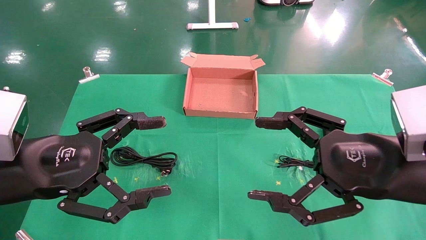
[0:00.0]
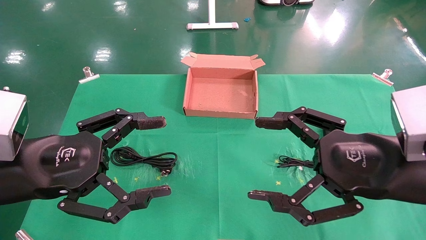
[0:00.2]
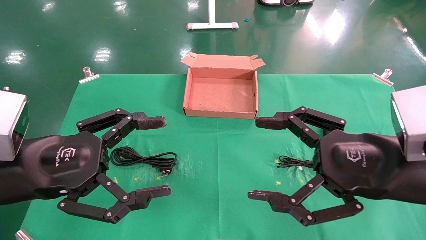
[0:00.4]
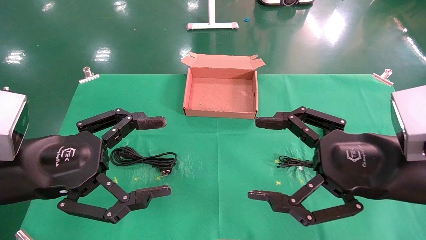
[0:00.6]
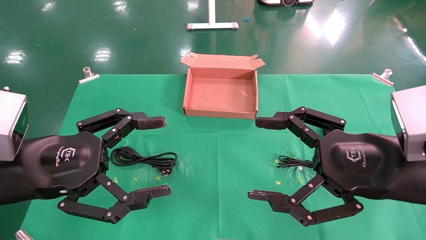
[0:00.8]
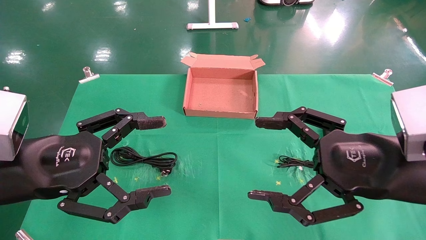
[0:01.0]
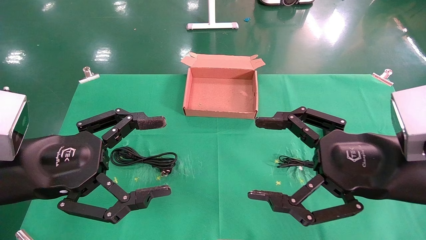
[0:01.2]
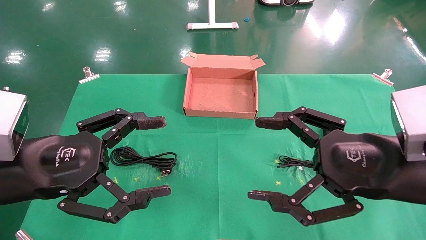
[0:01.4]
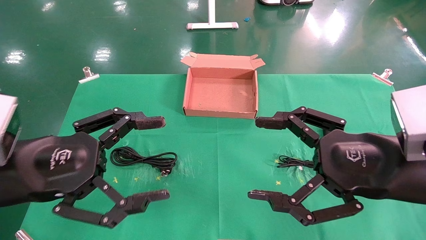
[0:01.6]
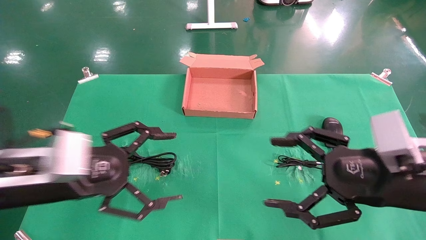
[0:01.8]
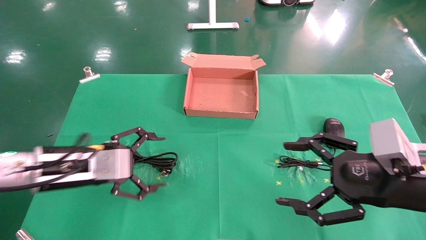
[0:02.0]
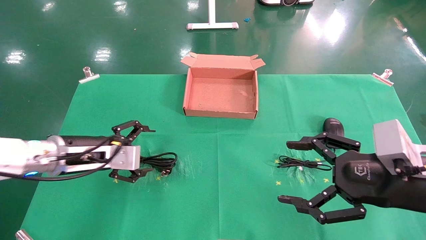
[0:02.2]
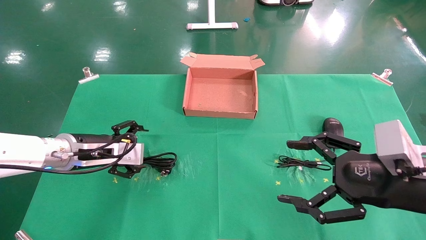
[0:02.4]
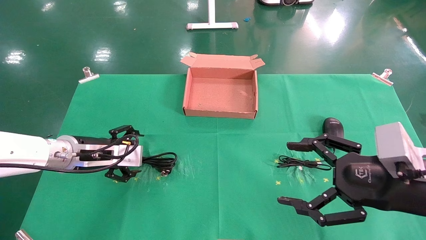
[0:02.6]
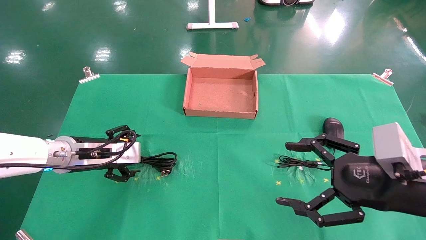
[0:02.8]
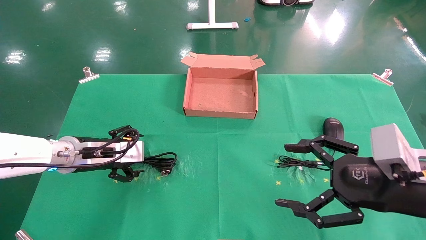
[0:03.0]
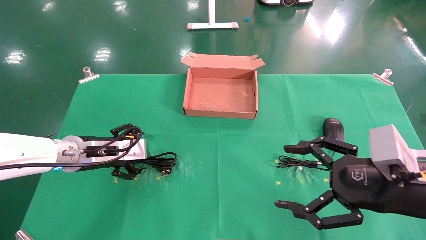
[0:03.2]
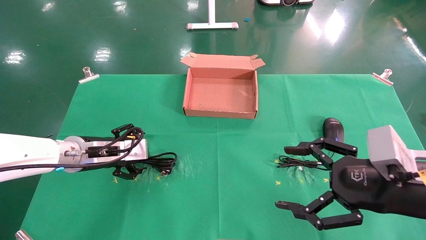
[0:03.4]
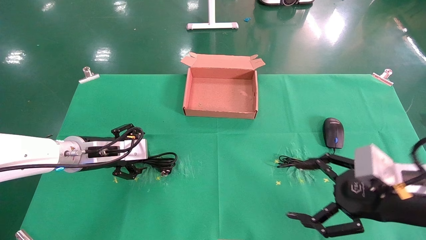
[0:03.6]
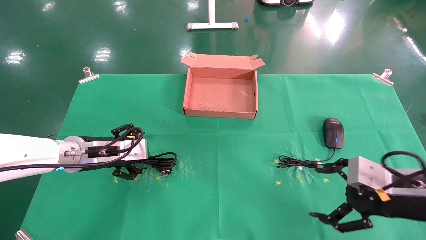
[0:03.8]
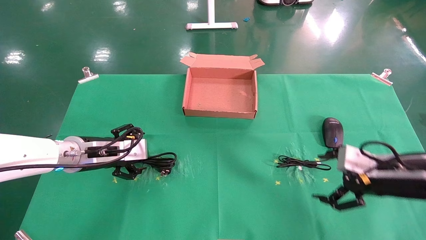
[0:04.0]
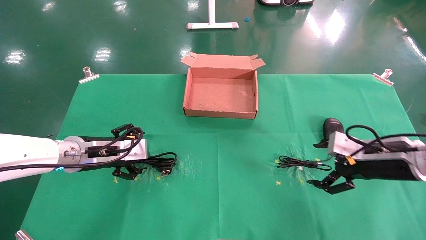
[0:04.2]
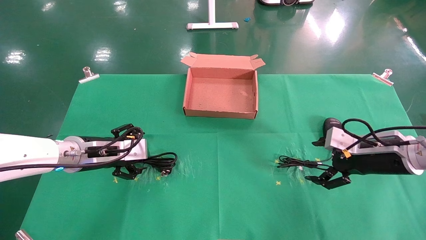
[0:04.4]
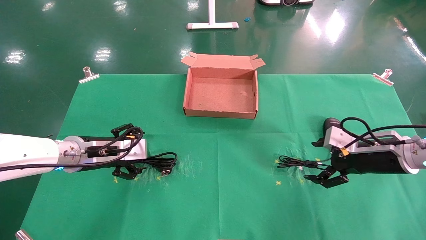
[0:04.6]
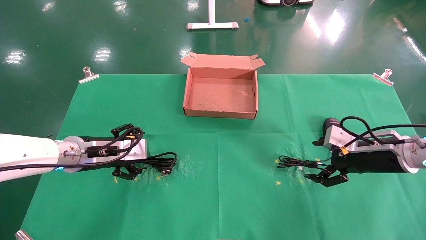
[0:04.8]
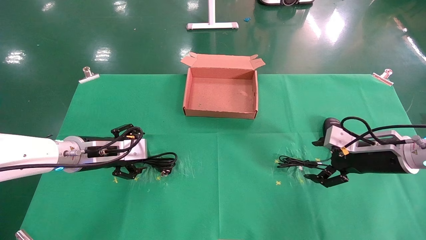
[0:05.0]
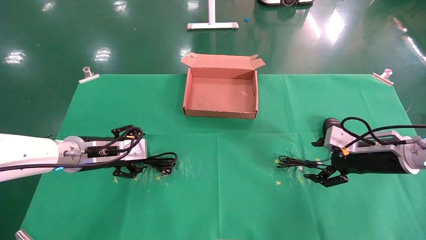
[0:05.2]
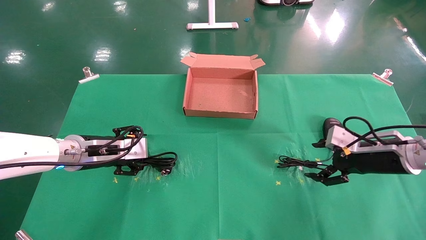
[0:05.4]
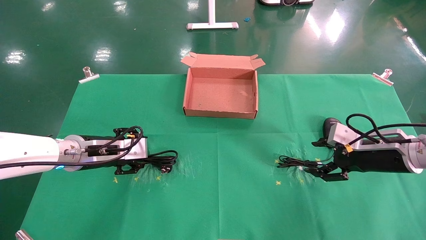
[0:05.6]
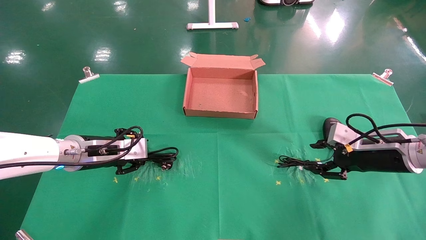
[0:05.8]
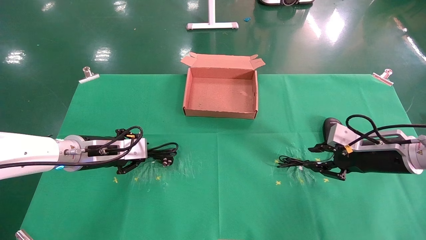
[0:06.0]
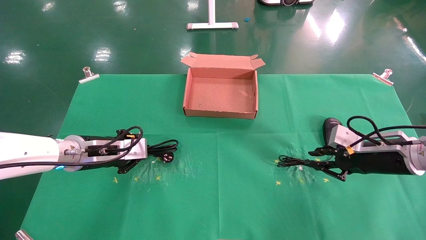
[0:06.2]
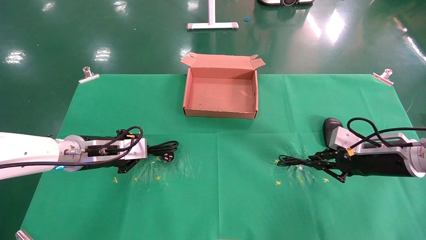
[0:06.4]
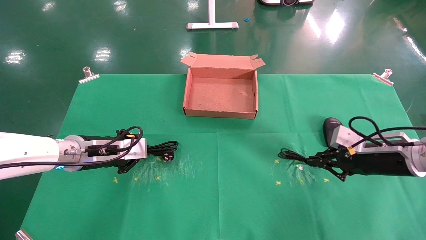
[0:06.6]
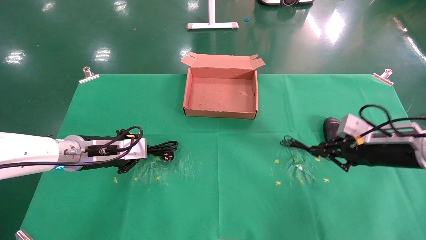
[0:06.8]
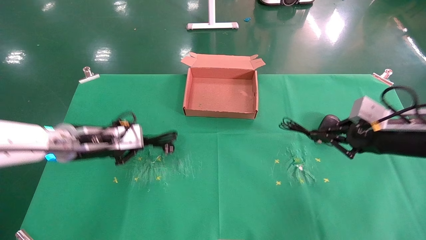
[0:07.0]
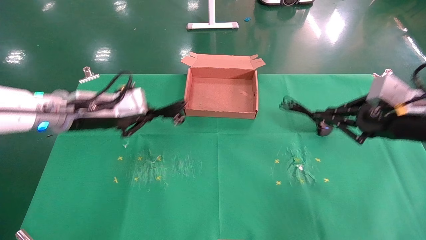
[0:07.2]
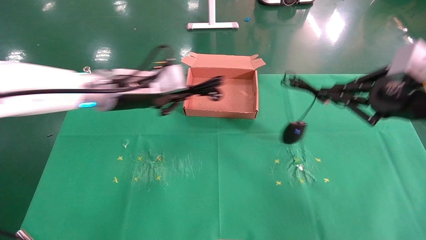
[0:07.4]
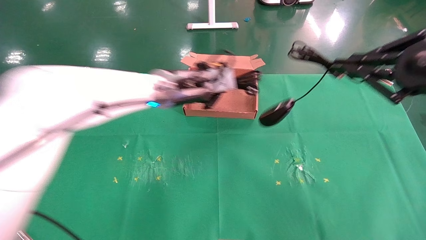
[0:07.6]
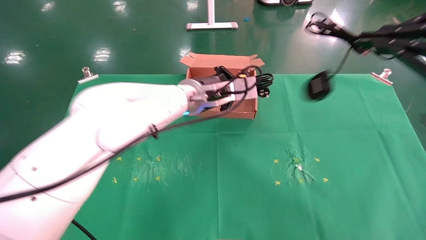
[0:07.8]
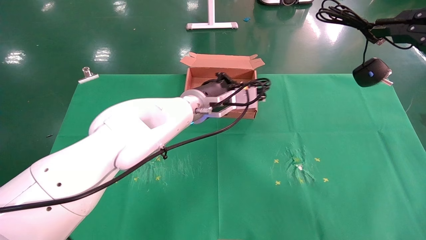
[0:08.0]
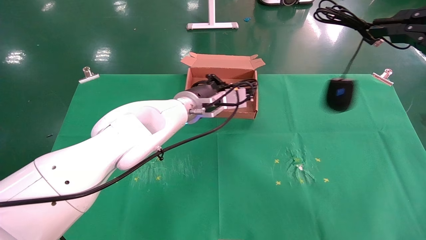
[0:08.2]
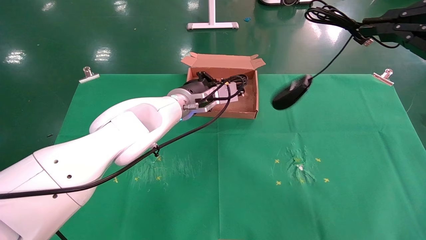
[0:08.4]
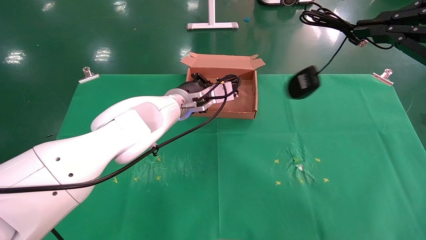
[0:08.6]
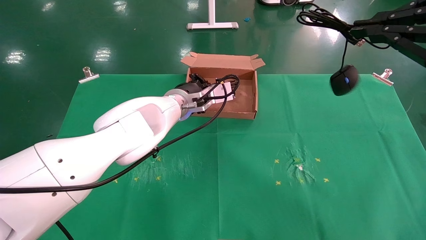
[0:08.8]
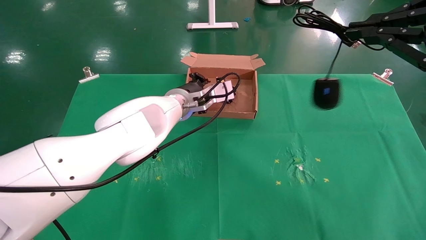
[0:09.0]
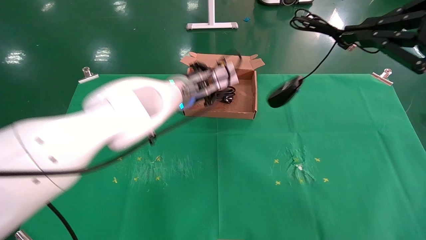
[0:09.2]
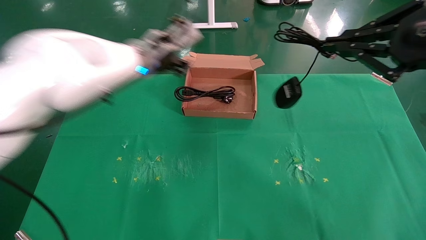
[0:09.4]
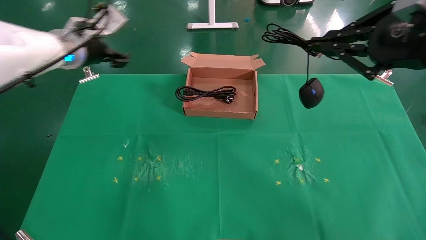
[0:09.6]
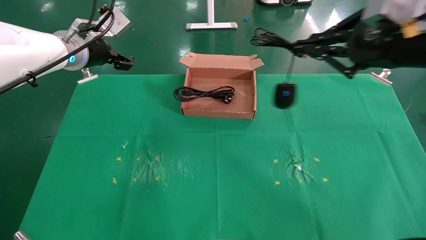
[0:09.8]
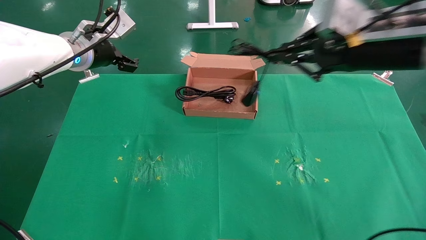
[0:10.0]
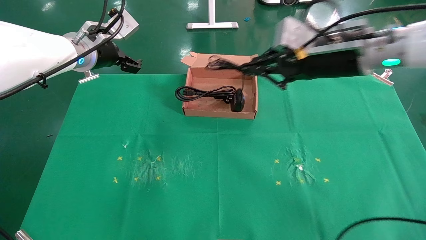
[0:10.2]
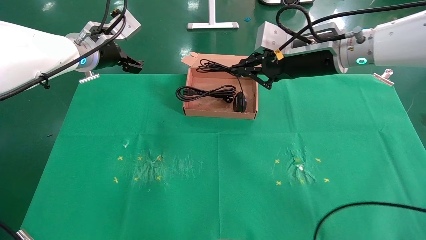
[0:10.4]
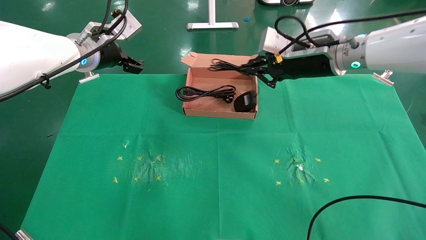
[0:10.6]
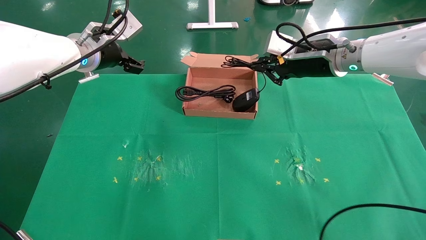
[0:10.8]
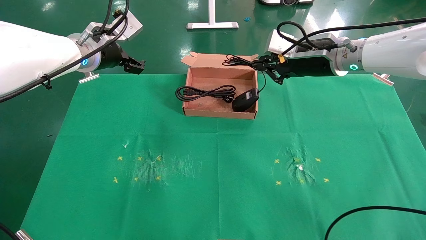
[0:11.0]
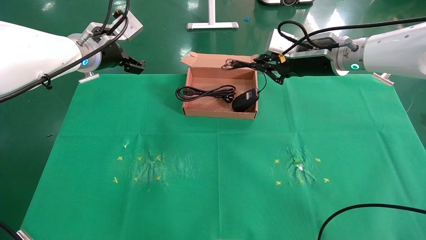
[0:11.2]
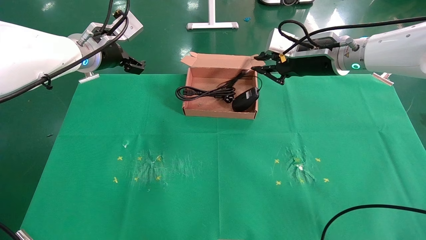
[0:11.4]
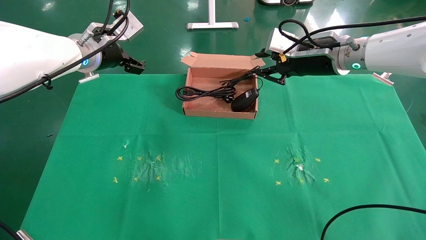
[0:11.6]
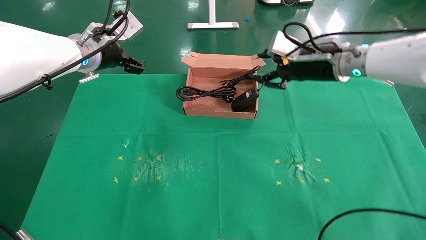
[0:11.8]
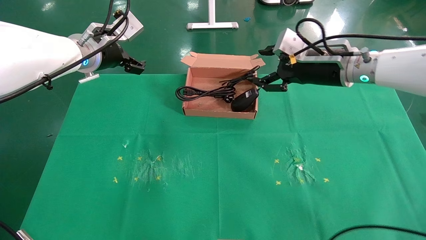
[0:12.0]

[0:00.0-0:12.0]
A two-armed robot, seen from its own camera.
Task of the whole recording: grasp data cable left put into box grasp mouse right put into box.
Step, 0:01.6 to 0:06.6: Simultaneously pick up the mouse and power cord from the accessory packaging area.
Step, 0:06.8 to 0:11.2: Place the mouse and power cord into the box.
0:00.0 to 0:01.6: The grippers stay close to where they were, moving slightly.
0:01.6 to 0:03.0: The left gripper moves forward, about 15 cm.
0:03.0 to 0:04.4: The right gripper heads forward and to the right, covering about 15 cm.
0:04.4 to 0:06.0: The right gripper closes up; the left gripper closes its fingers.
0:06.0 to 0:07.6: The left gripper goes roughly 20 cm to the right and upward. Meanwhile the right gripper moves upward and backward, some 25 cm, and closes.
0:07.6 to 0:09.0: The left gripper ends up about 5 cm from where it was; the right gripper travels upward by approximately 5 cm.
0:09.0 to 0:10.4: The right gripper is displaced forward and to the left by roughly 25 cm. The left gripper is displaced to the left and upward by approximately 20 cm, and opens.
0:10.4 to 0:12.0: The right gripper opens up.

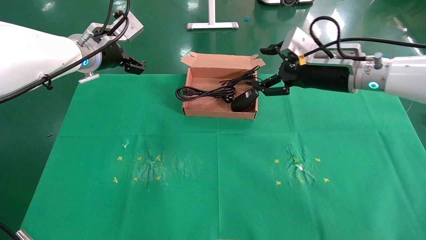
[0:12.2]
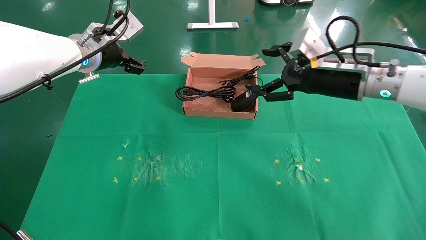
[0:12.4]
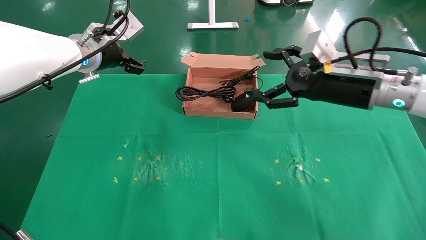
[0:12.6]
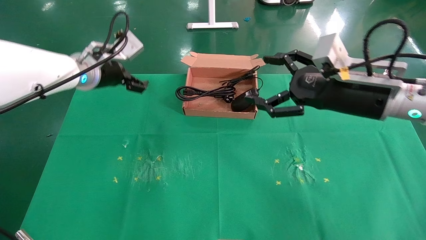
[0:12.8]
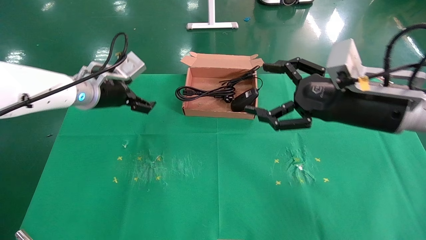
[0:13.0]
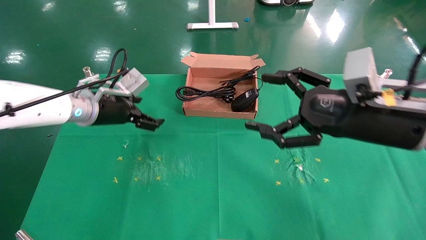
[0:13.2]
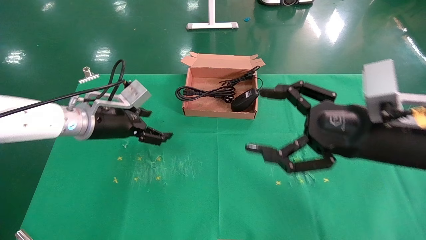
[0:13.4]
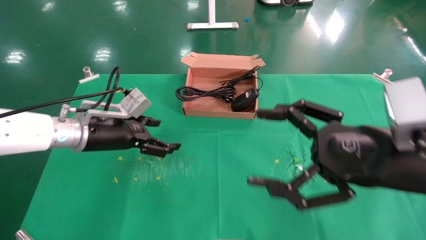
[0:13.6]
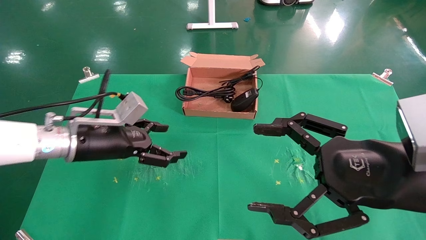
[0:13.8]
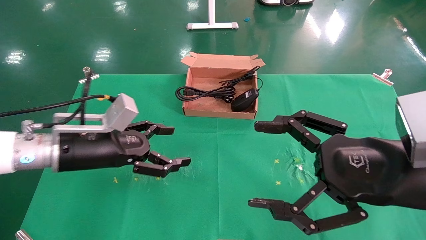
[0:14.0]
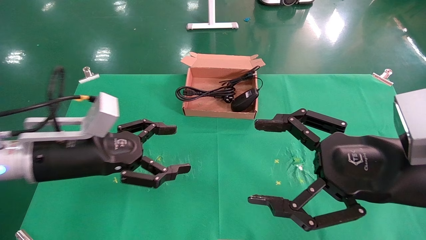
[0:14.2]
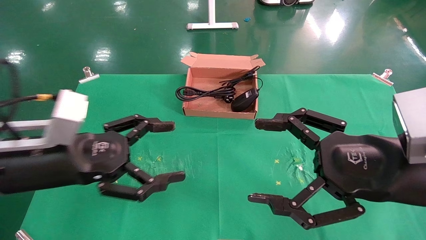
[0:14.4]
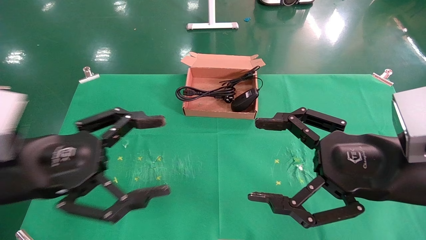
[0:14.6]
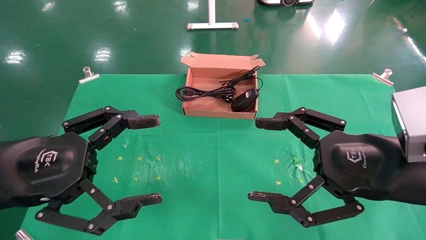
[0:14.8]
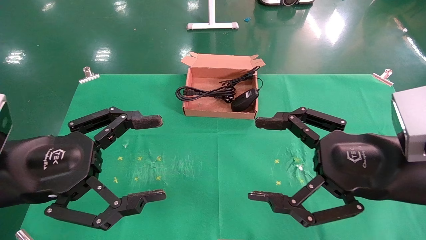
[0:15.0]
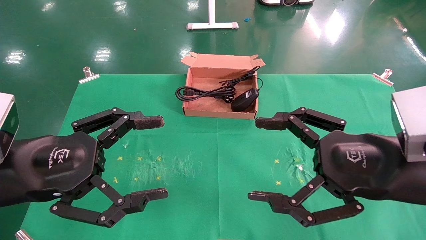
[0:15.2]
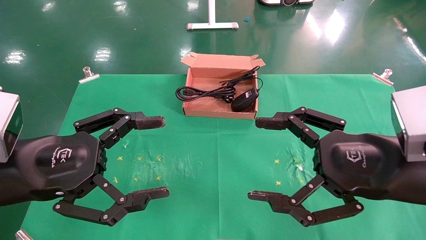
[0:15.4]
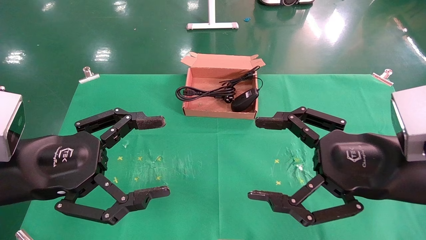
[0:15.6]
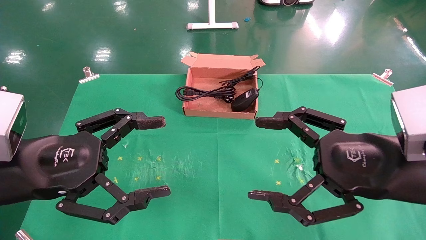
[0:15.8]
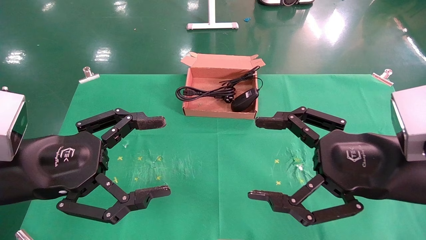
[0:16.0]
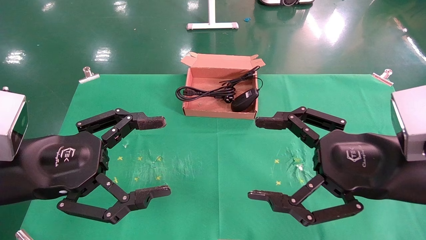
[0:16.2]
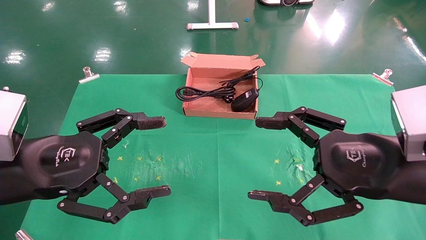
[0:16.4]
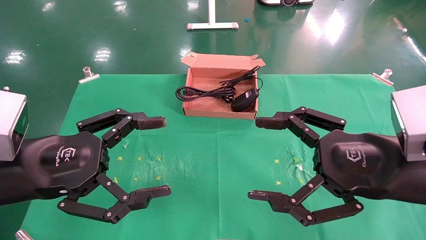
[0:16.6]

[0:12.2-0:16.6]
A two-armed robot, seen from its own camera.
Task of the whole recording: grasp data cable left put into box grasp mouse right put into box.
0:12.2 to 0:13.6: The left gripper heads downward and backward, covering approximately 15 cm, while the right gripper shifts roughly 20 cm backward.
0:13.6 to 0:15.2: The left gripper goes roughly 15 cm backward.
0:15.2 to 0:16.6: Both grippers stay about where they are.
